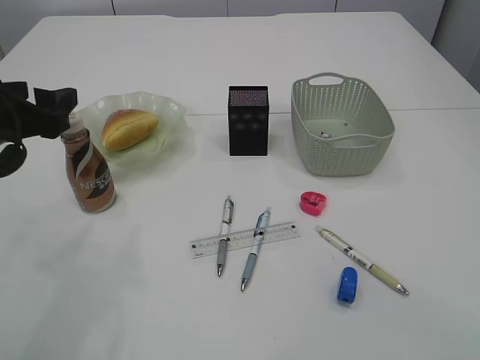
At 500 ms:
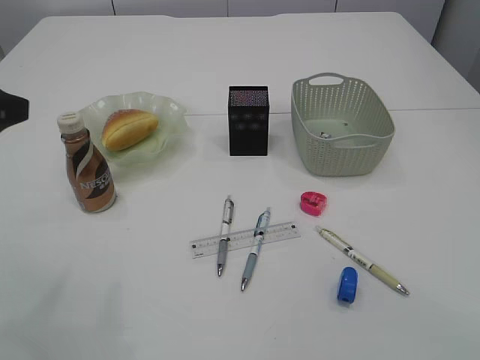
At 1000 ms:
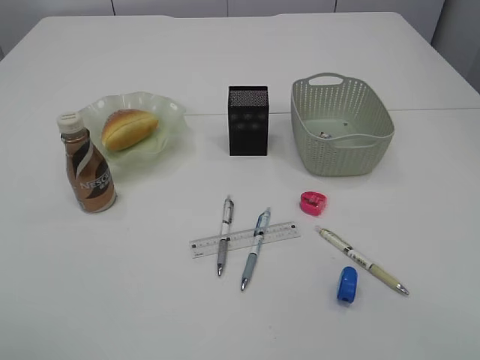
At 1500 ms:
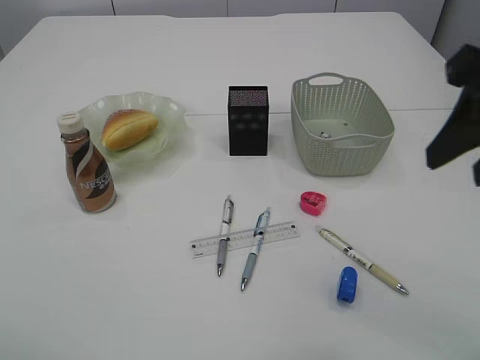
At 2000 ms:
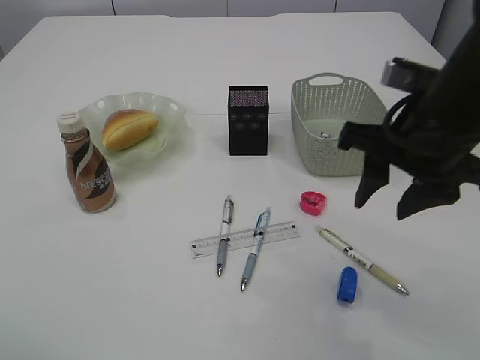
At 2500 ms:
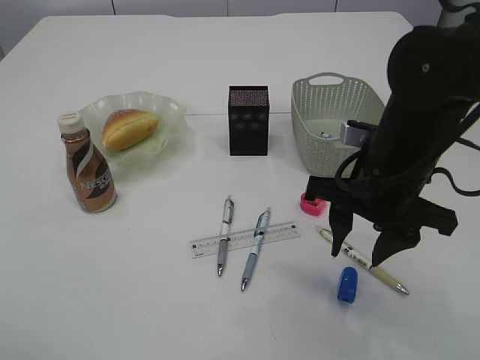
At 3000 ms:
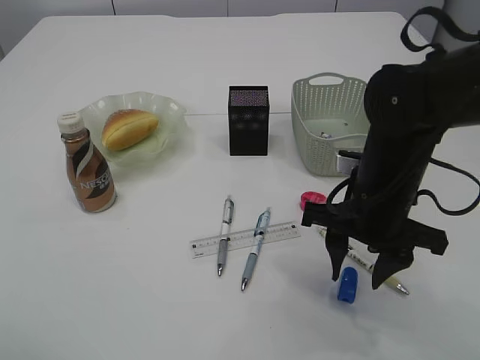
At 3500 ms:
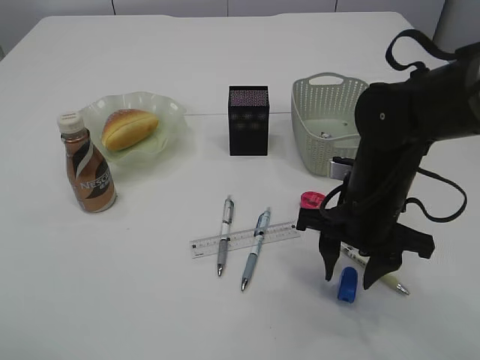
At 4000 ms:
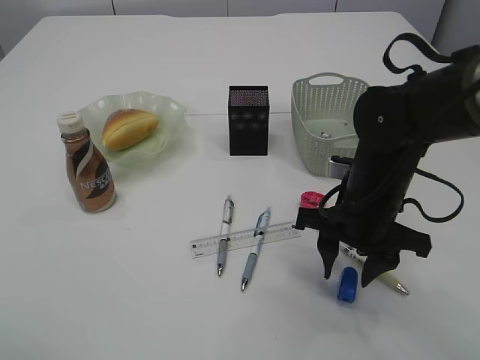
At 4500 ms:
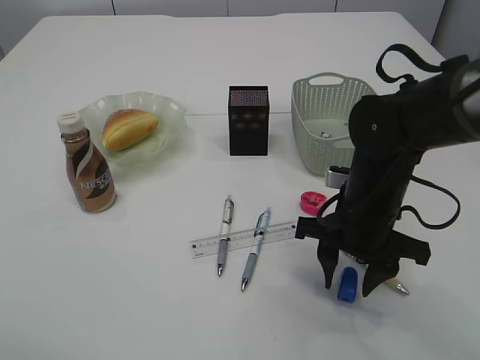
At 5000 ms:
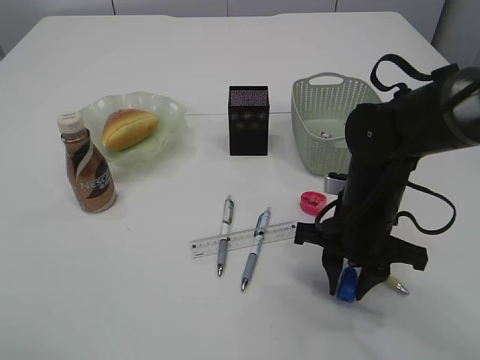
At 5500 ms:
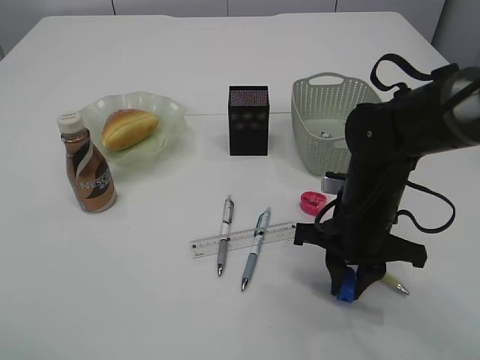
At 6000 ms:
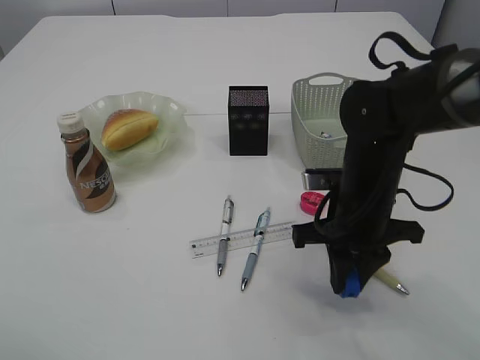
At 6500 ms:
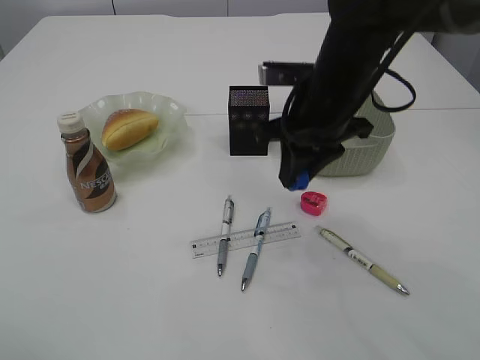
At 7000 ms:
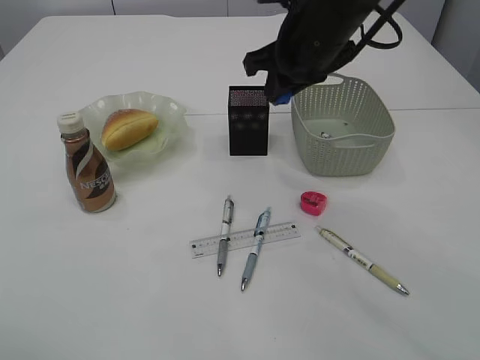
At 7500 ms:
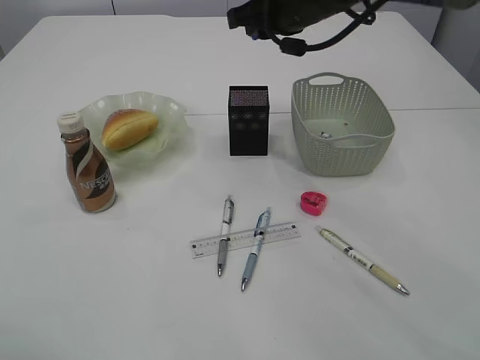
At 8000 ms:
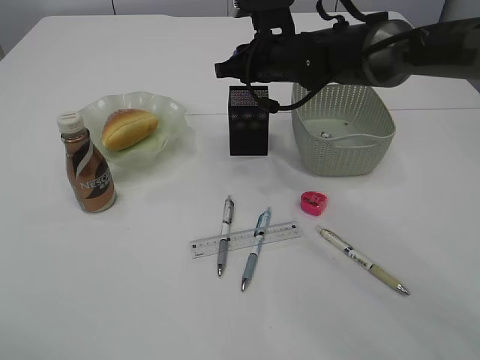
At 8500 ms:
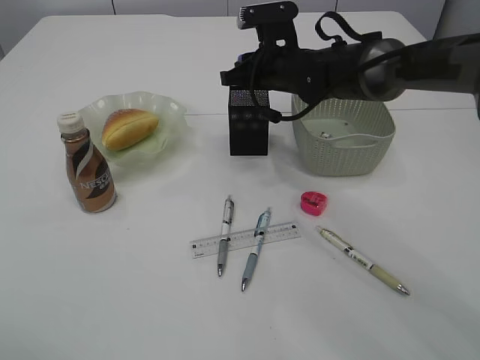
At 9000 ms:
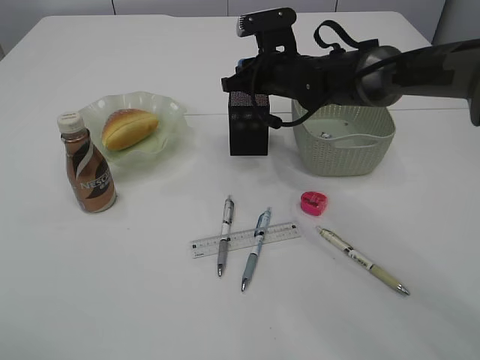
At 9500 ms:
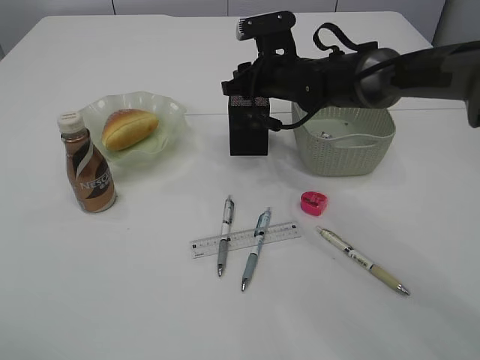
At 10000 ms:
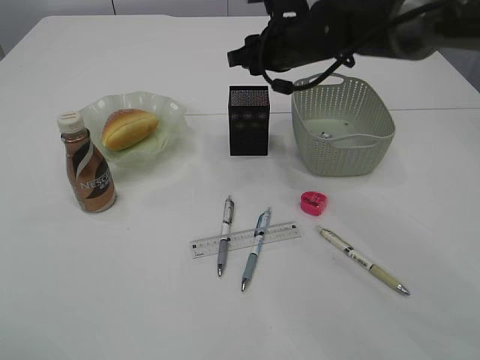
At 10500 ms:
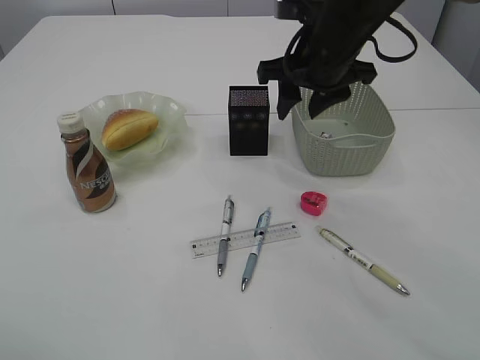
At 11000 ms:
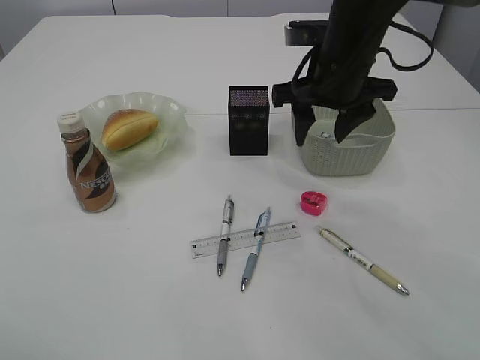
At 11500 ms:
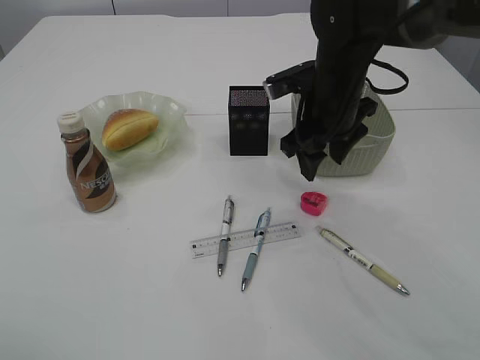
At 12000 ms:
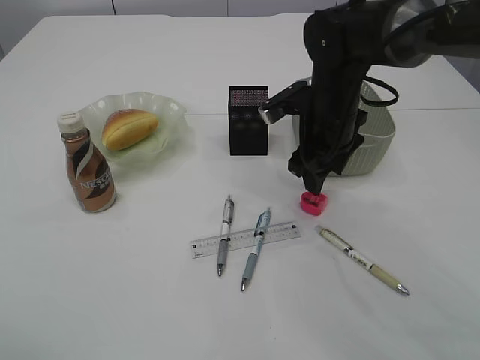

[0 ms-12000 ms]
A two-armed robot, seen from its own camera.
Step, 0 ms to 6000 ms: Pick up the blue pencil sharpener.
Step, 6500 ms to 10000 ms: Place the blue pencil sharpener into the pen holder.
0 ms to 2000 ms: The right gripper shifts some 25 cm forward, downward and to the left. The left gripper is displaced upward and backward by about 20 cm.
2000 ms to 4000 ms: The right gripper goes about 10 cm downward.
4000 ms to 6000 ms: The right gripper closes its fingers.
6000 ms to 8000 ms: The right gripper goes roughly 20 cm forward and upward.
8000 ms to 10000 ms: The grippers make only small movements.
10000 ms to 12000 ms: The right gripper is displaced backward by approximately 5 cm.

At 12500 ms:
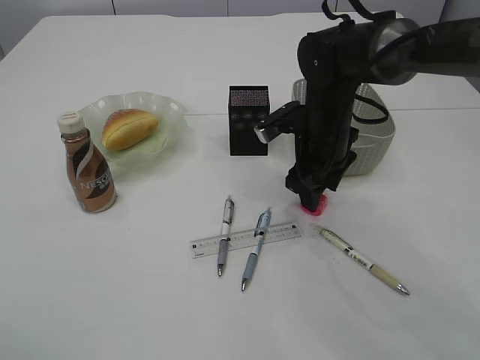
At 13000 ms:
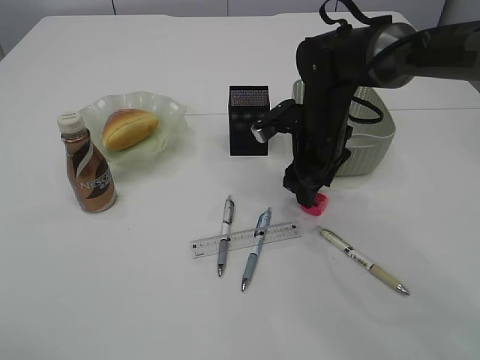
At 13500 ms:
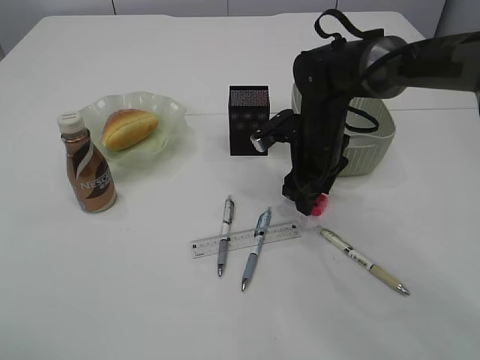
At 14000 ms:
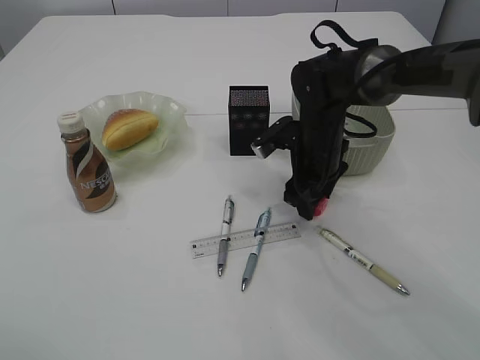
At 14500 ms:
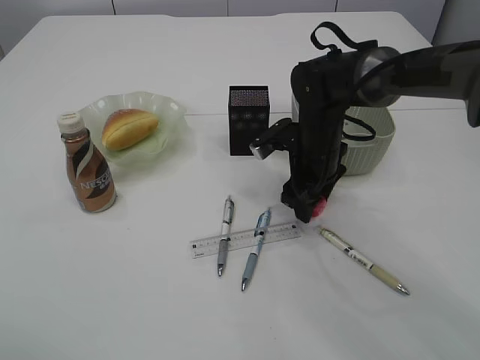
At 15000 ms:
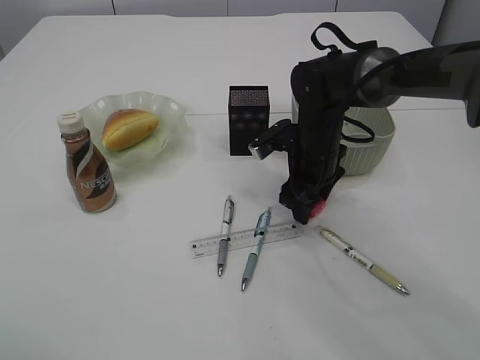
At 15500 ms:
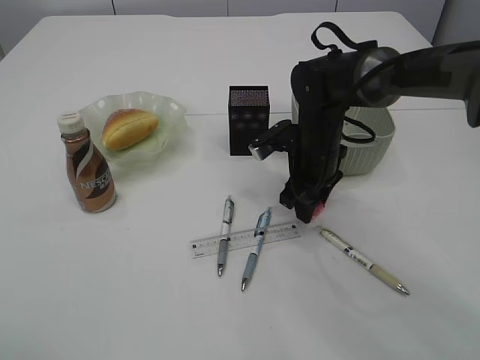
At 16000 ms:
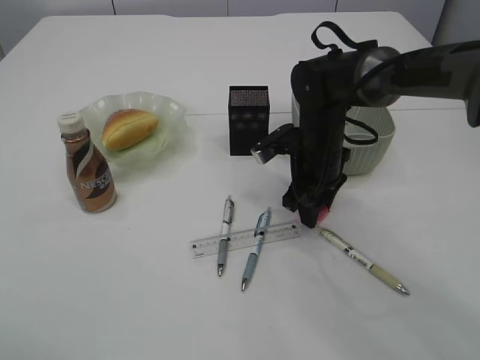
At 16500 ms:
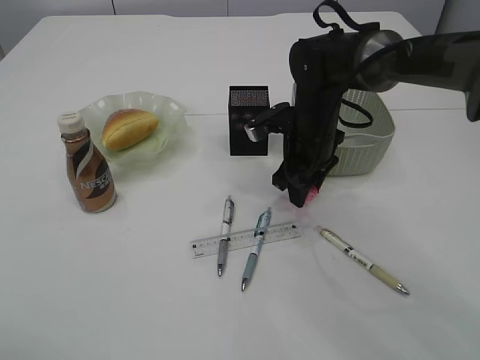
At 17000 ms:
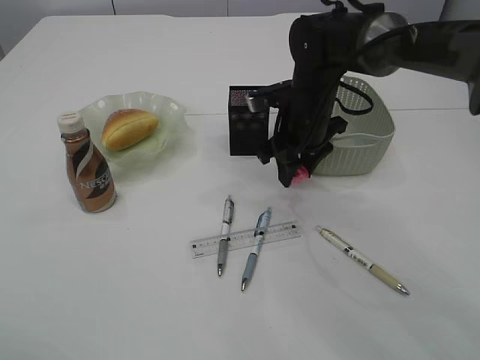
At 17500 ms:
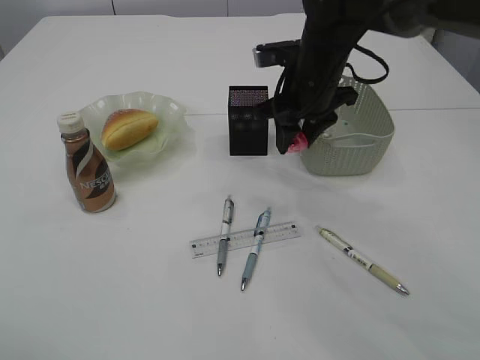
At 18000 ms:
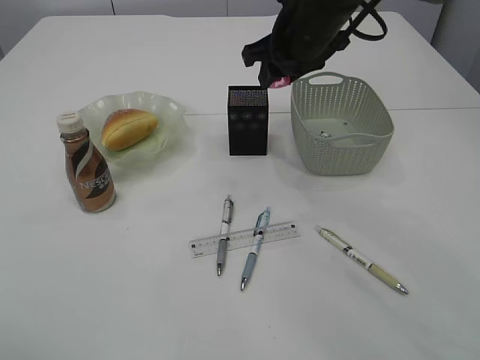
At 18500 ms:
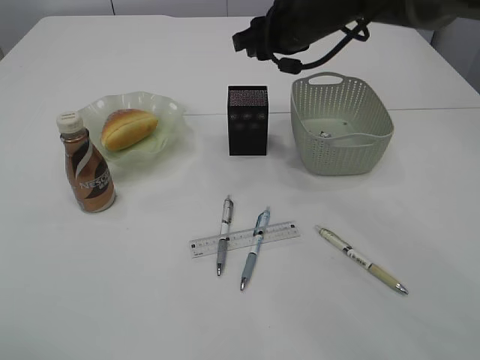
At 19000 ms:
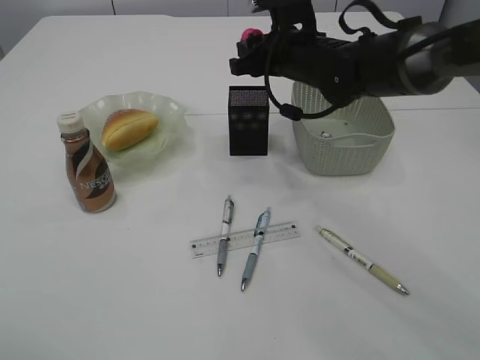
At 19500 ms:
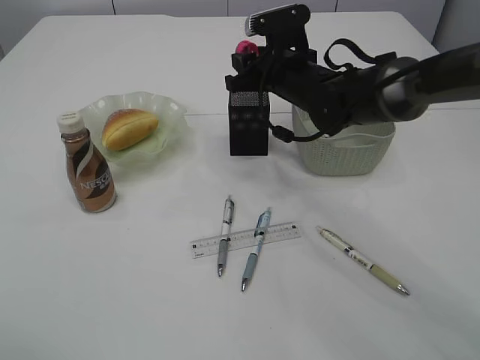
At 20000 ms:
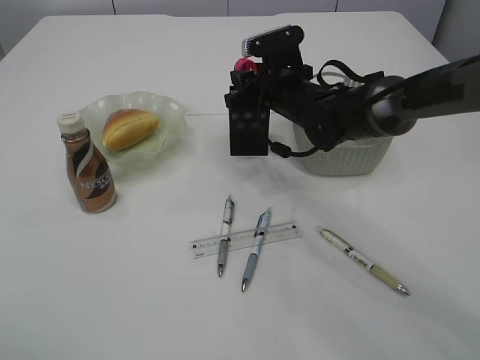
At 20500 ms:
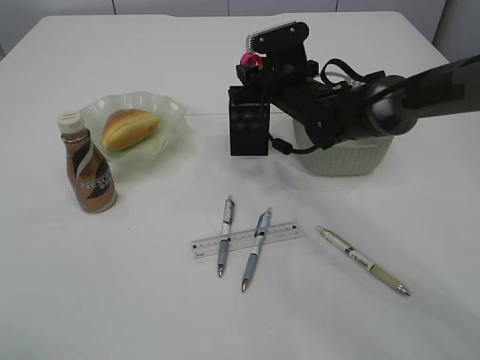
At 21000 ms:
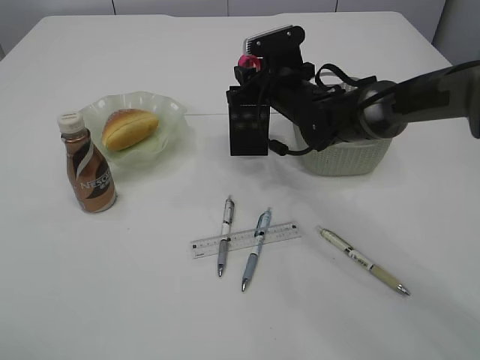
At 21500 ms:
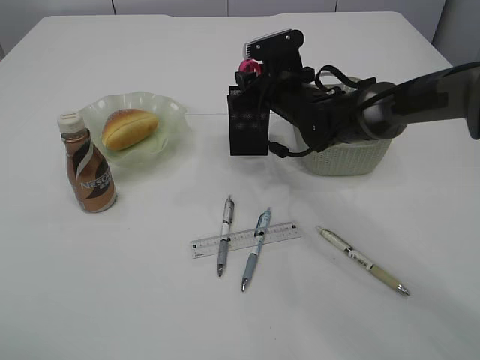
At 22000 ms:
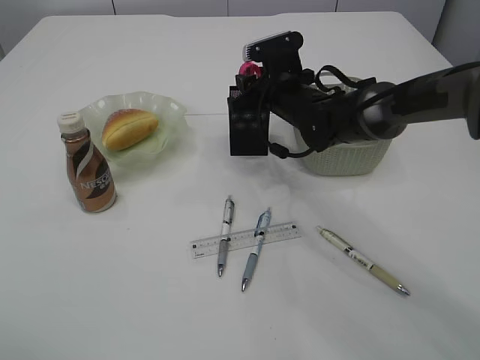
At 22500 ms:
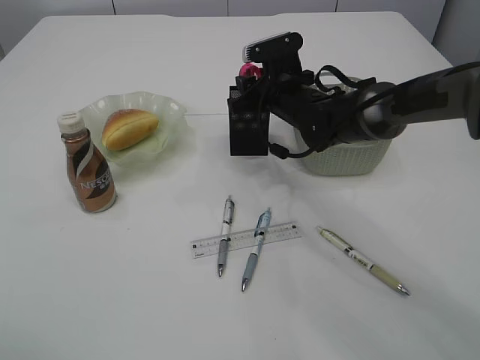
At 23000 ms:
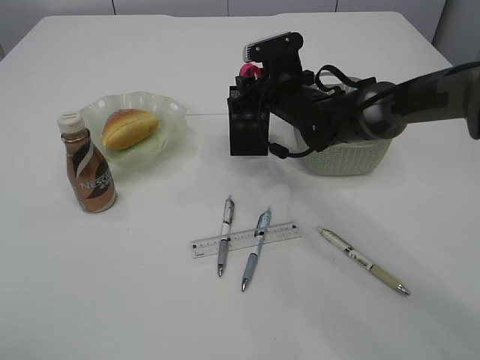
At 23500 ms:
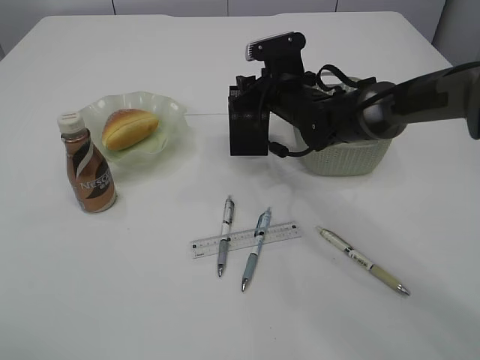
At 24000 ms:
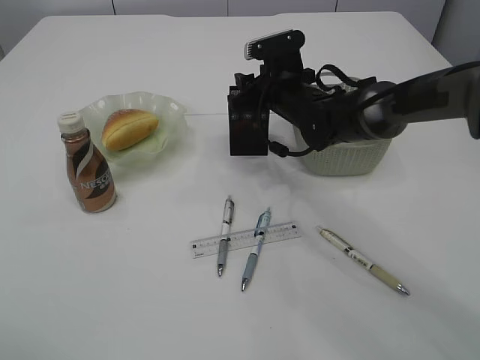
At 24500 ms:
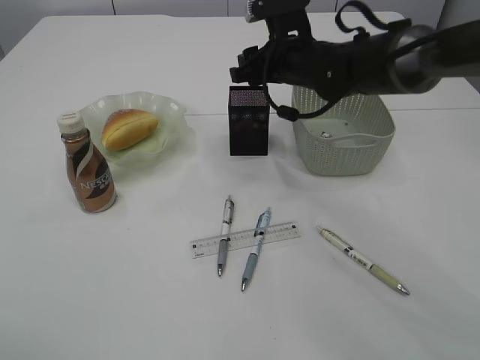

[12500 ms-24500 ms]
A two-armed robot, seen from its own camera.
Step, 12500 ms to 17000 ms: Pick up the red pencil sharpener.
Step, 17500 ms to 24500 ms: Place the red pencil sharpener into the pen holder.
12500 ms to 16500 ms: There are only small adjustments of the grippers.
16500 ms to 18500 ms: The right gripper is displaced upward by about 15 cm.
18500 ms to 20500 ms: The right gripper moves downward, roughly 10 cm.
20500 ms to 22500 ms: The grippers move only a little.
22500 ms to 24500 ms: The right gripper shifts about 5 cm upward.

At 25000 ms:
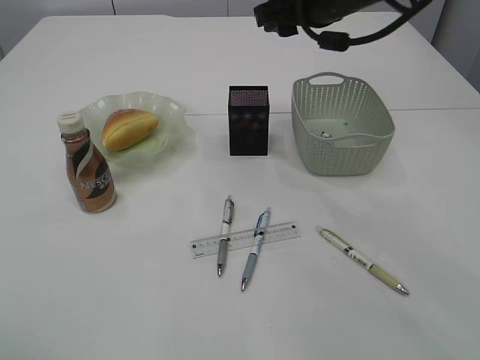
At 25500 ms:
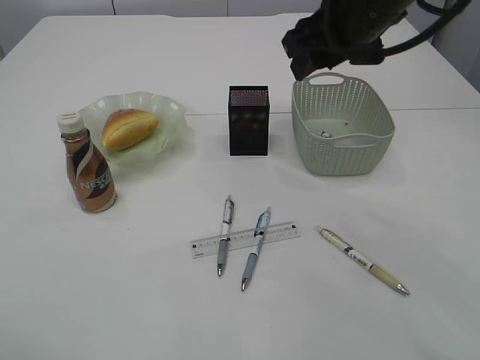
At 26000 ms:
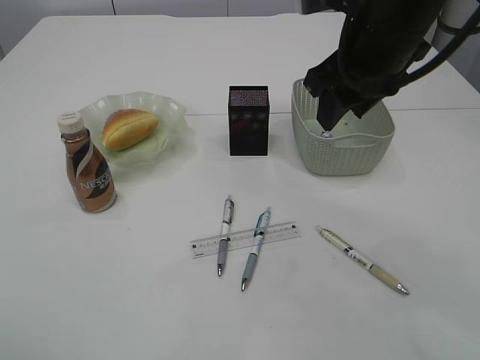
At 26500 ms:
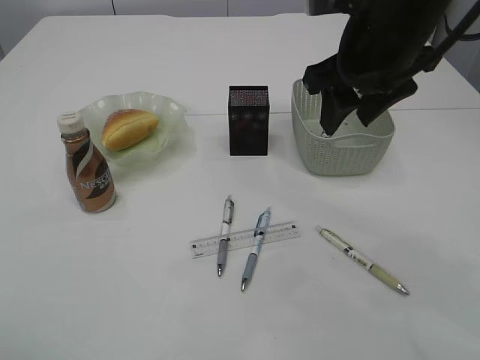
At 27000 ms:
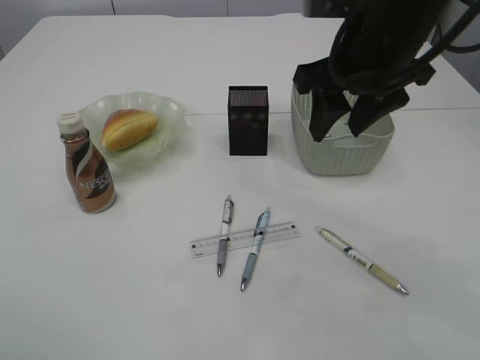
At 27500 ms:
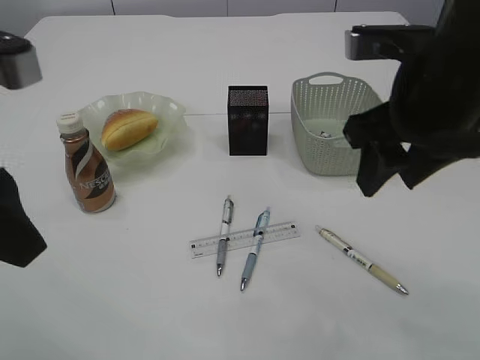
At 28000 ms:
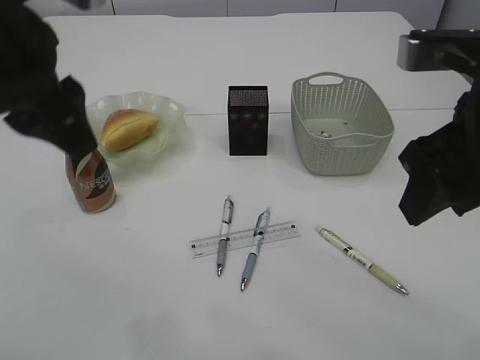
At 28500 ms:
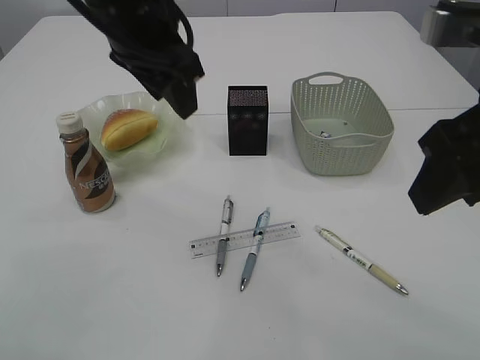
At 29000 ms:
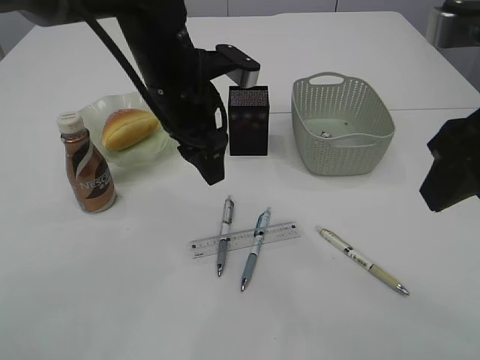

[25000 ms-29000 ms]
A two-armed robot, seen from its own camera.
25000 ms to 27000 ms: The right gripper moves backward, some 5 cm.
27000 ms to 29000 ms: The right gripper moves backward and to the right, some 15 cm. The left gripper travels to the right, forward and downward by approximately 30 cm.
